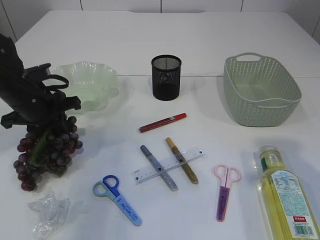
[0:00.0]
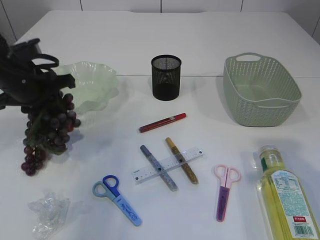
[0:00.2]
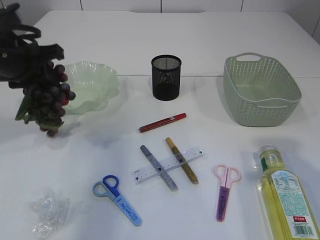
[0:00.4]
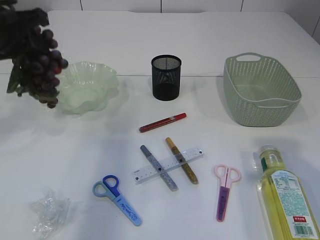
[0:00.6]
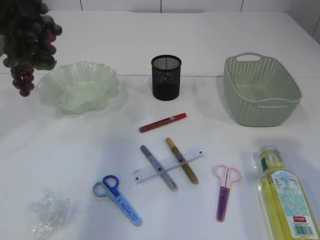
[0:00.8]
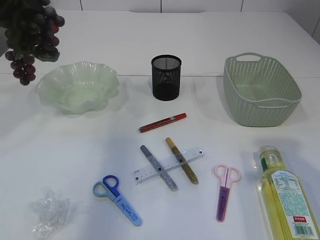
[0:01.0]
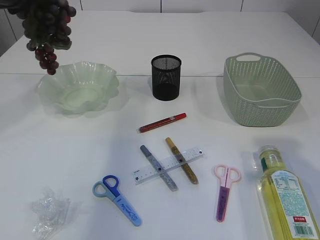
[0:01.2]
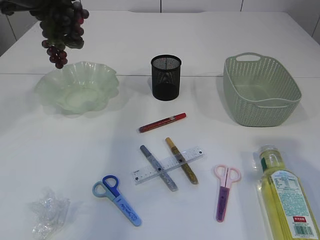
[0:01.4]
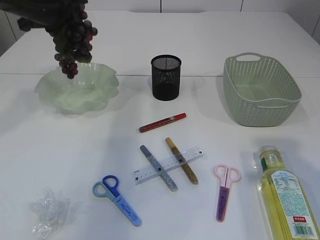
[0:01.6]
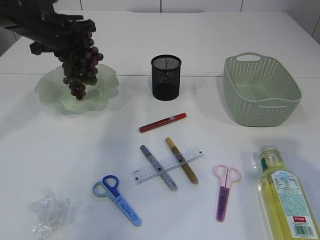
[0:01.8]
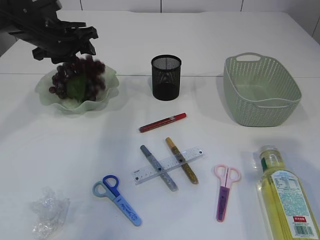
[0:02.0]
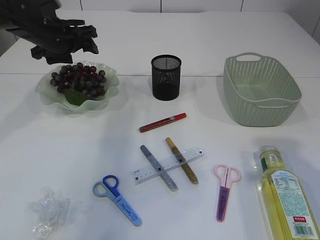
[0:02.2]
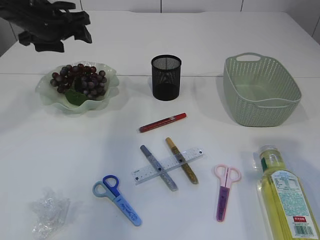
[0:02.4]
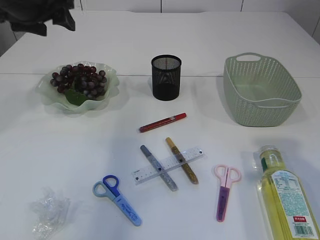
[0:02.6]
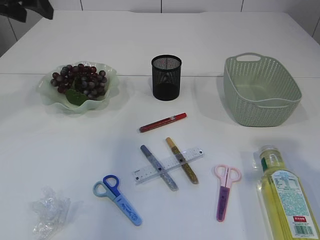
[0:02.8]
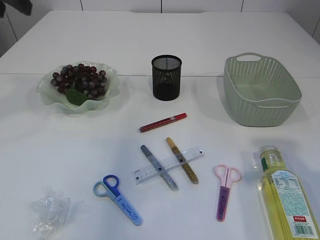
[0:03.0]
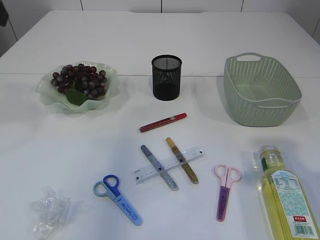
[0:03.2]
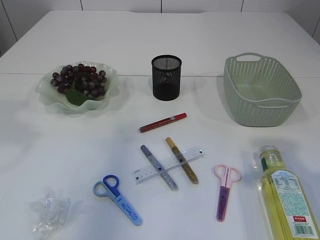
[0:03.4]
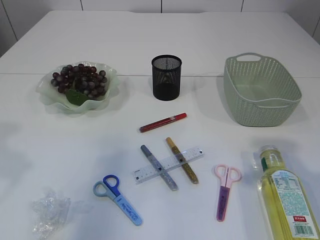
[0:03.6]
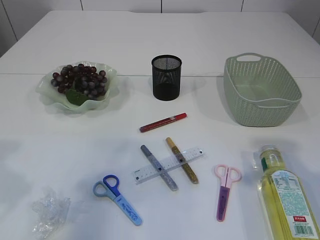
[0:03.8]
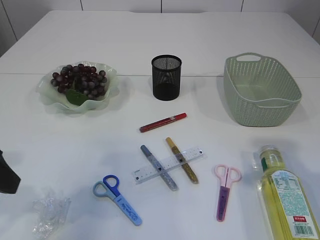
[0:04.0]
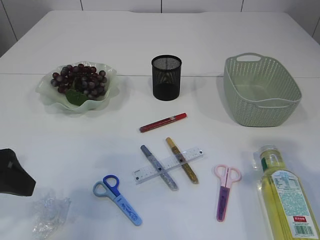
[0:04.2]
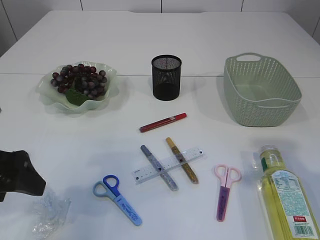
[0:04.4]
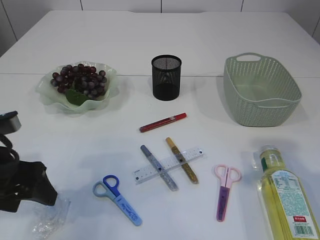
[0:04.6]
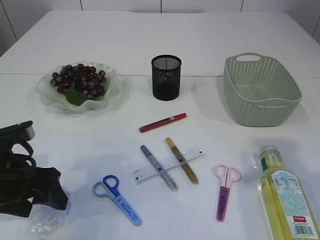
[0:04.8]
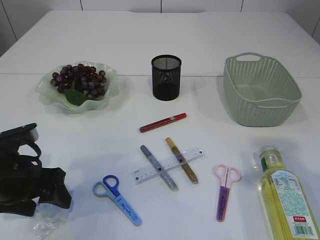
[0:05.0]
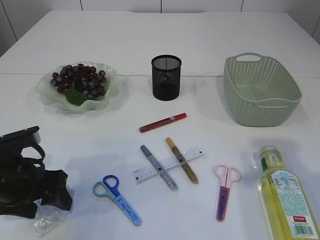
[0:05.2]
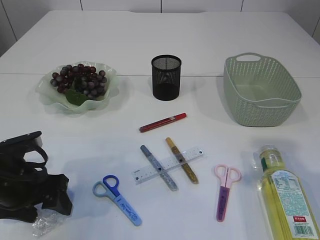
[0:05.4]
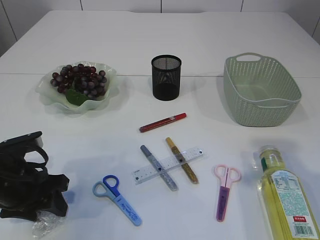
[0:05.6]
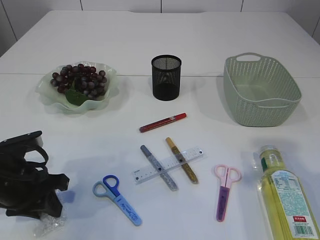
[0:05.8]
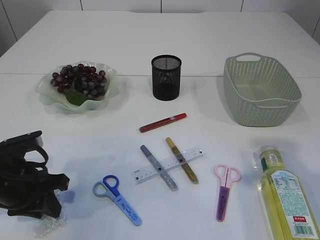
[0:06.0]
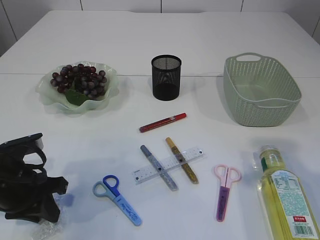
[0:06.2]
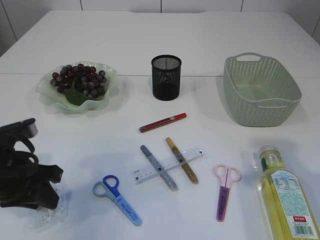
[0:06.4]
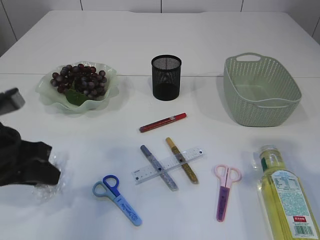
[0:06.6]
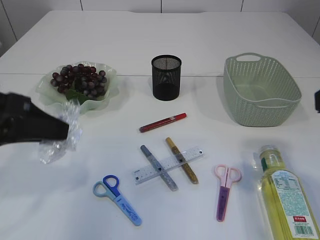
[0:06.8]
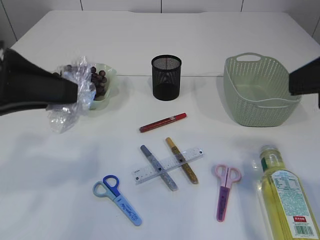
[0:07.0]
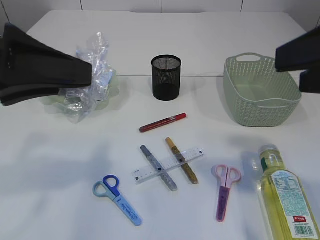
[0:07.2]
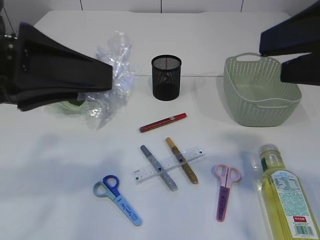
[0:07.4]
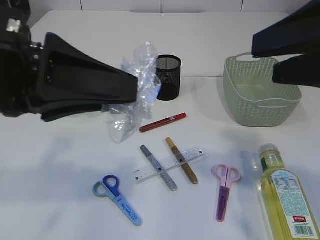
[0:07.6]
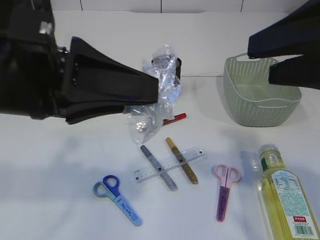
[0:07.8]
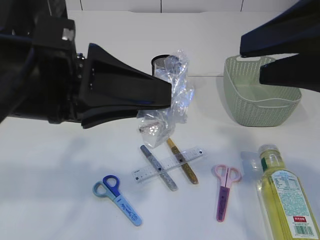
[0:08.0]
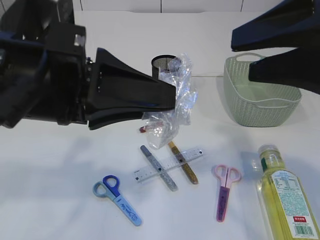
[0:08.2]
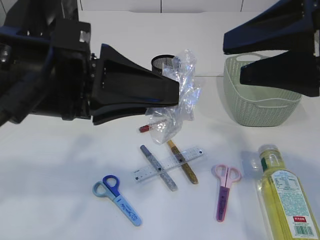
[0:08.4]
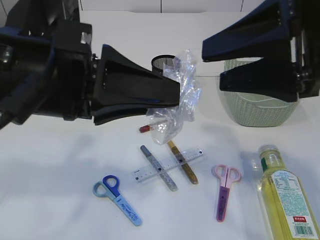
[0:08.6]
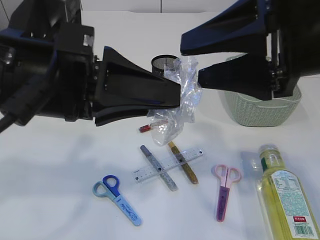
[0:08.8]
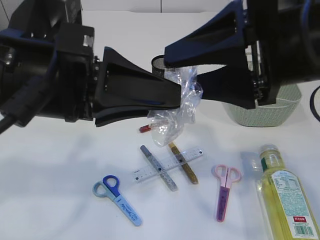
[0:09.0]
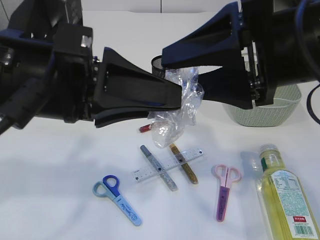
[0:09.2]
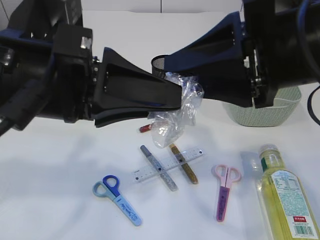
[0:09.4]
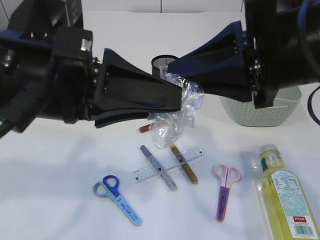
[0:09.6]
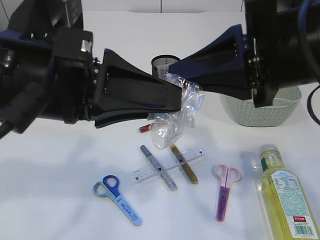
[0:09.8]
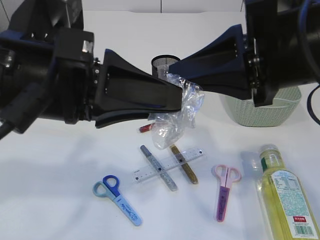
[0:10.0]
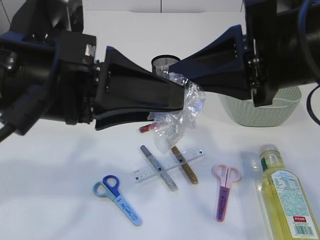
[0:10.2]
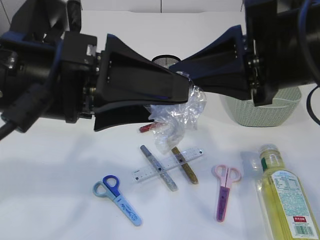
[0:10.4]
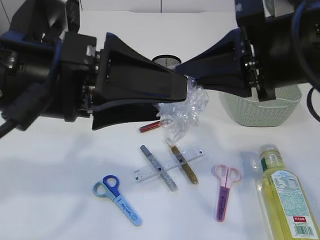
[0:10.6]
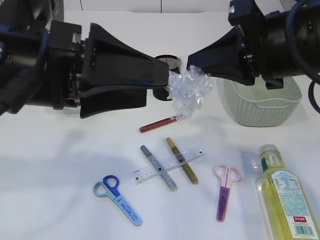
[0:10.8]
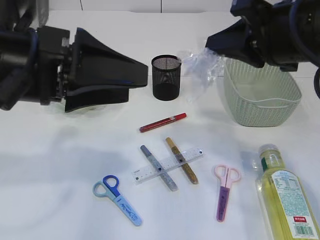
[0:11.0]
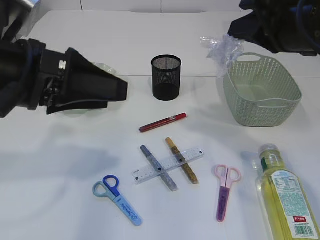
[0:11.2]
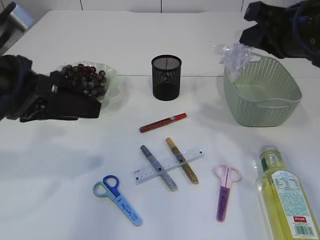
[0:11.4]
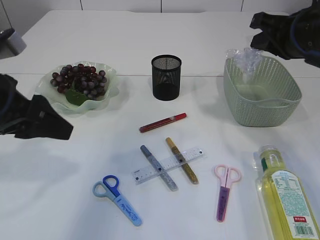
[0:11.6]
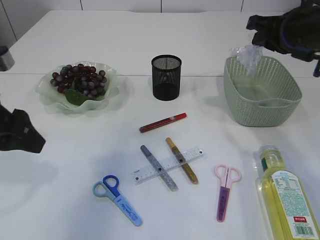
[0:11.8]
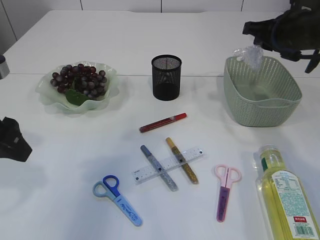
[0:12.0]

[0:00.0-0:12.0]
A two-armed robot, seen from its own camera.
Step, 0:00.6 to 0:02.4: Place the grapes in the plate.
Step, 0:02.6 to 0:07.0: Pick up the plastic.
Step, 0:07.2 to 0:11.2: Hand over the plastic.
0:00.0 to 0:01.6: The left gripper shifts some 15 cm upward and forward.
0:01.6 to 0:03.0: The left gripper heads backward and upward, covering approximately 15 cm, and opens up.
0:03.0 to 0:04.4: The left gripper heads downward and backward, covering some 25 cm, and opens its fingers.
0:04.4 to 0:06.0: The left gripper heads downward, covering roughly 10 cm, and closes.
0:06.0 to 0:07.6: The right gripper shifts by approximately 5 cm. The left gripper heads upward, covering some 20 cm.
0:07.6 to 0:09.0: The right gripper shifts approximately 5 cm to the left.
0:09.0 to 0:10.4: The left gripper opens its fingers. The right gripper closes up.
0:10.4 to 0:12.0: The left gripper heads to the left and downward, covering roughly 15 cm; the right gripper travels forward and to the right by about 20 cm.

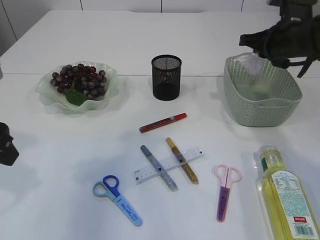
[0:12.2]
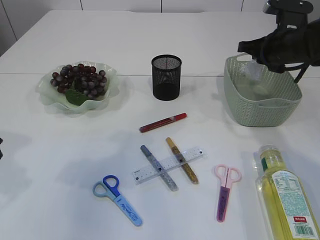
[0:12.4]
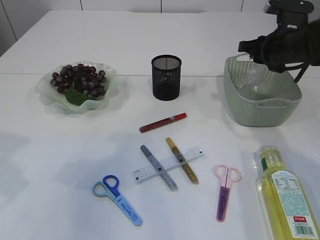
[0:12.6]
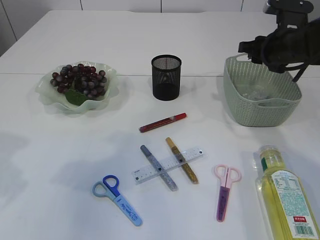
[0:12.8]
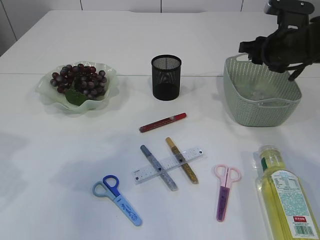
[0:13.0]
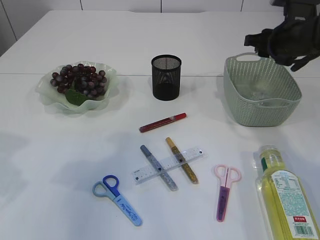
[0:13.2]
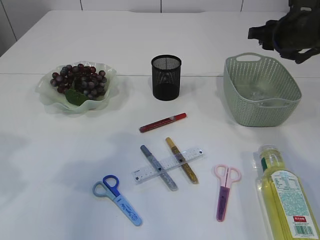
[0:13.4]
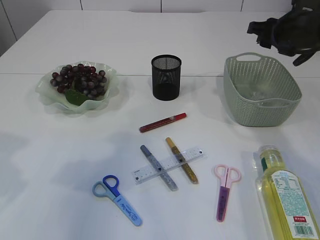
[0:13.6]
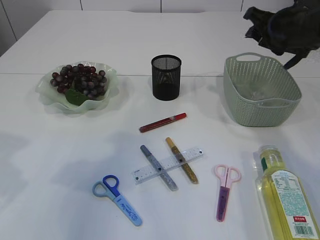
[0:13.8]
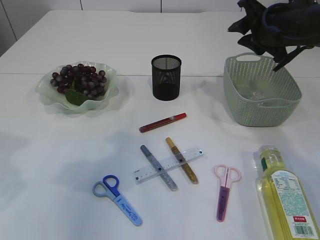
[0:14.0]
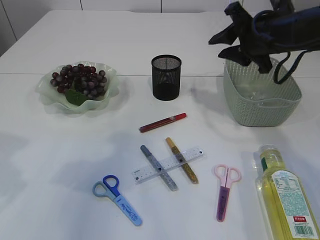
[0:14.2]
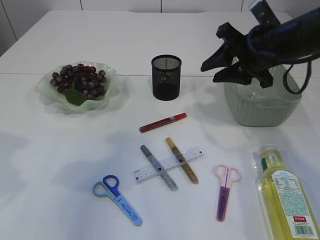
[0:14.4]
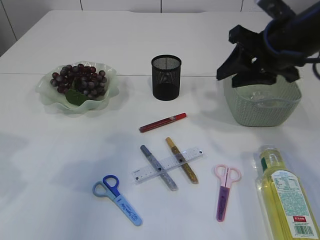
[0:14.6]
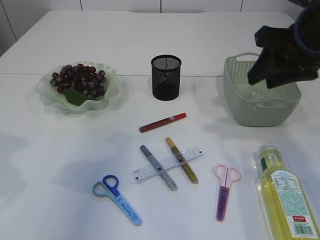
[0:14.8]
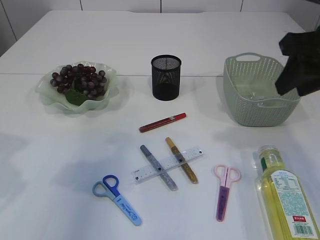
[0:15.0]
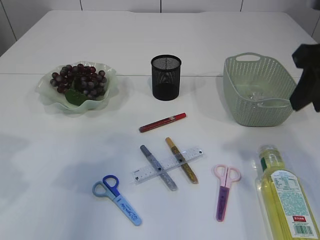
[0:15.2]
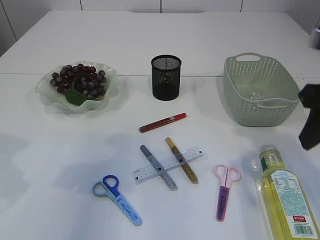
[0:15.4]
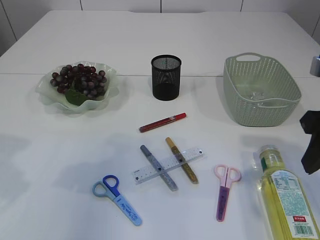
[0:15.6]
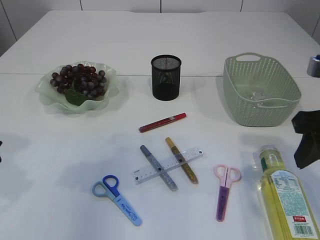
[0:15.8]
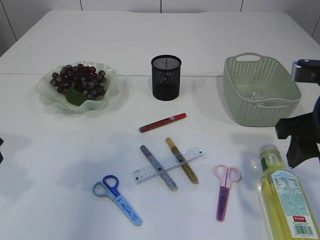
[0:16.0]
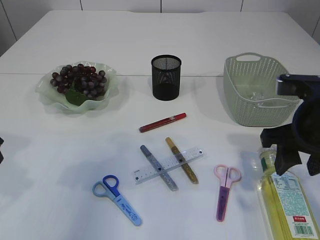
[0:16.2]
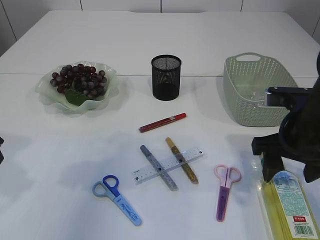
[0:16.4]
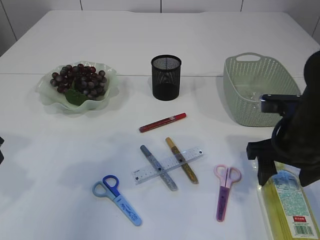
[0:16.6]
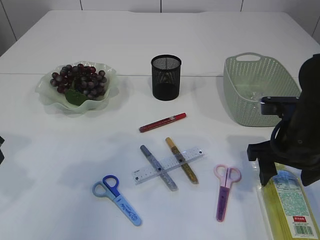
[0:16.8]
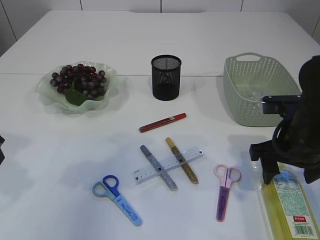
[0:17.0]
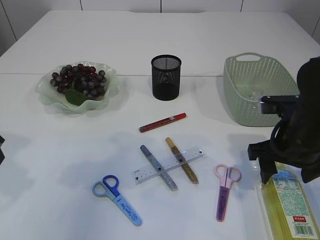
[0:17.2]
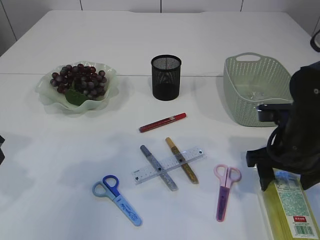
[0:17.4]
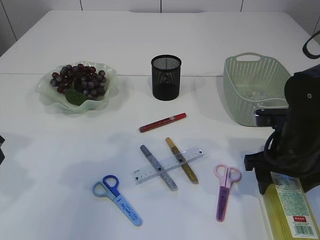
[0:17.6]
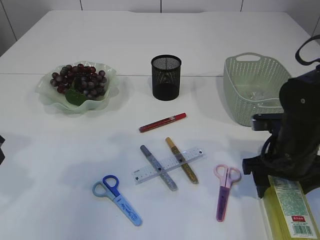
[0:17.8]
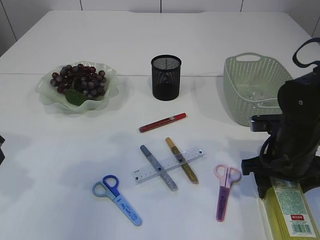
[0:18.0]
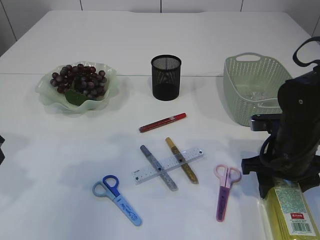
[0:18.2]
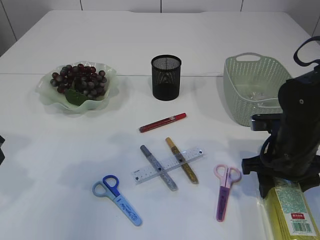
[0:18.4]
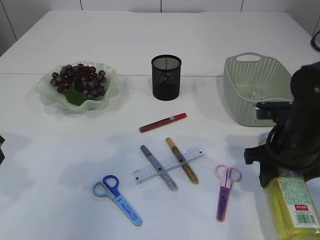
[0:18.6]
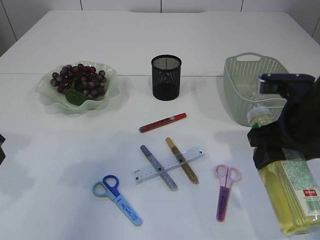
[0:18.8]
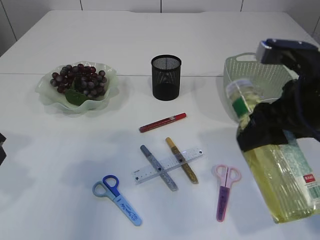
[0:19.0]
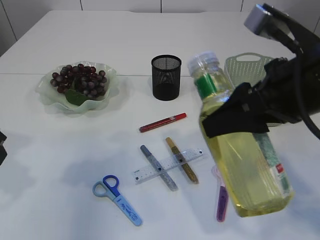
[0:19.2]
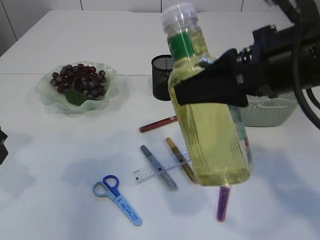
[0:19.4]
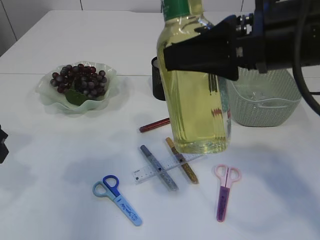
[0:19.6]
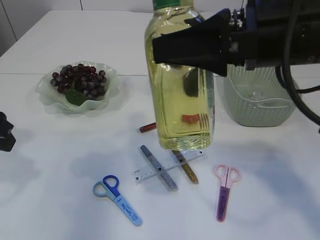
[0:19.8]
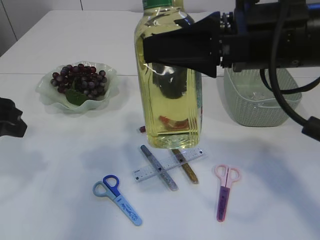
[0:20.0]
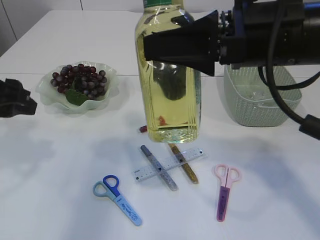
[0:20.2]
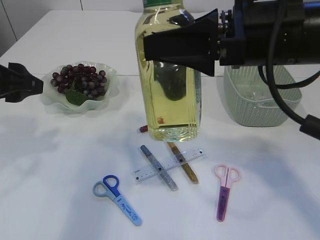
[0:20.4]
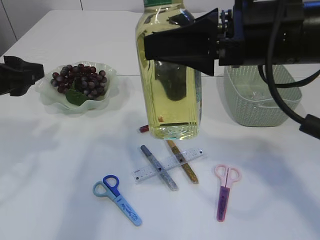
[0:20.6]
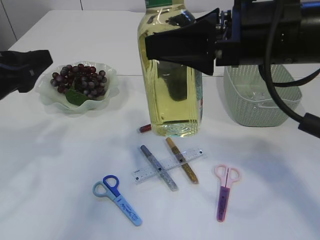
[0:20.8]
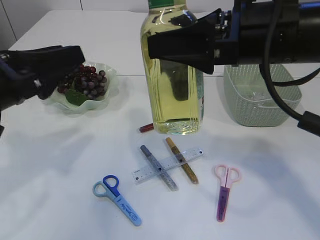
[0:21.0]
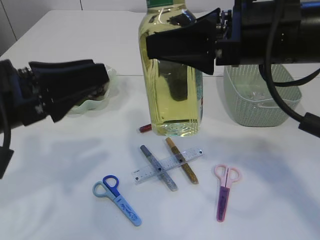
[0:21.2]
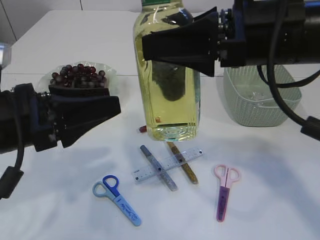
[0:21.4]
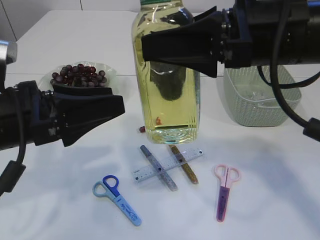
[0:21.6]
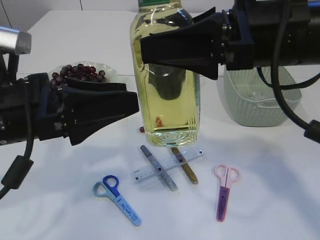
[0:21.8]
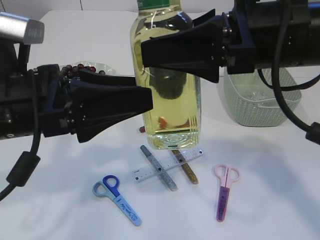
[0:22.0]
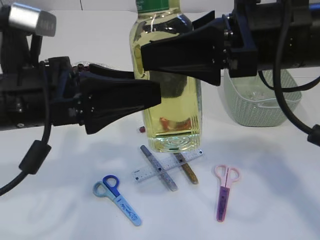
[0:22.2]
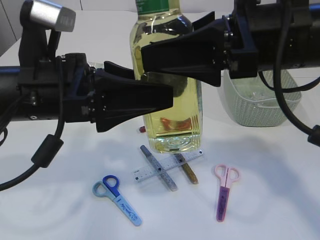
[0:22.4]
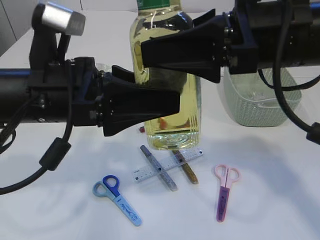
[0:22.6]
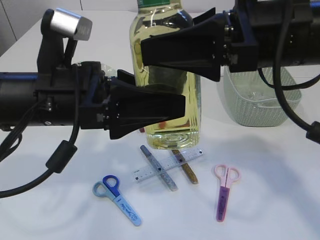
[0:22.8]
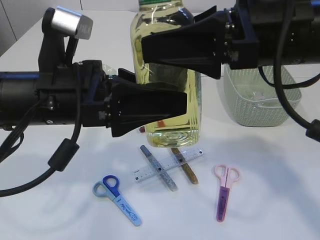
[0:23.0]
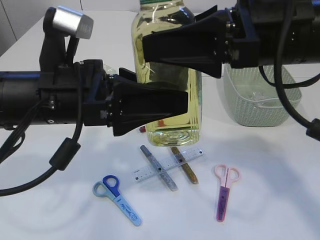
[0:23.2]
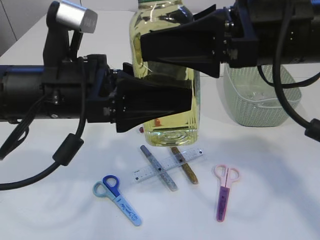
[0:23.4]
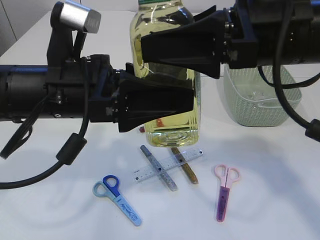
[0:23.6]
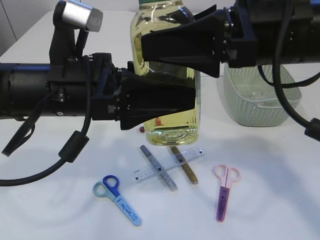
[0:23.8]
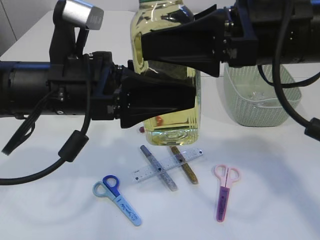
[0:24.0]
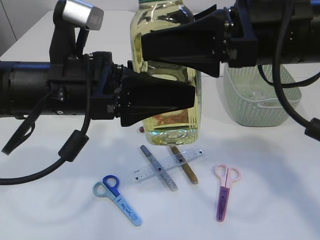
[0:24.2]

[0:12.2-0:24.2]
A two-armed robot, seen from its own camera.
Step, 0:12.2 to 0:13.6: Place the plastic in the basket.
Step, 0:13.8 to 0:19.0: Pick up the bottle with the right arm.
0:12.2 to 0:13.8: The right gripper opens its fingers.
0:13.8 to 0:15.2: The right gripper goes about 15 cm backward and upward.
0:15.2 to 0:16.6: The right gripper moves downward, approximately 15 cm, and opens up.
0:16.6 to 0:18.2: The right gripper moves downward, approximately 5 cm.
0:18.2 to 0:19.8: The right gripper is displaced upward by about 20 cm.
0:19.8 to 0:21.2: The left gripper is displaced to the right by approximately 5 cm.
0:21.2 to 0:22.6: The left gripper goes approximately 5 cm to the right, and opens up.
